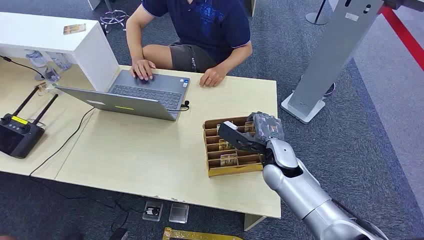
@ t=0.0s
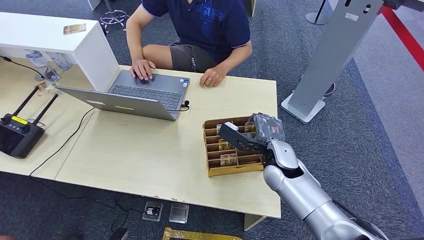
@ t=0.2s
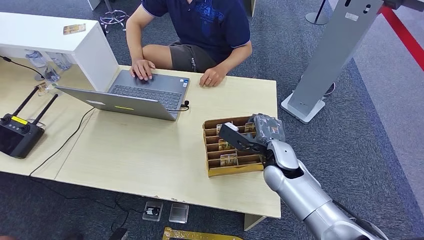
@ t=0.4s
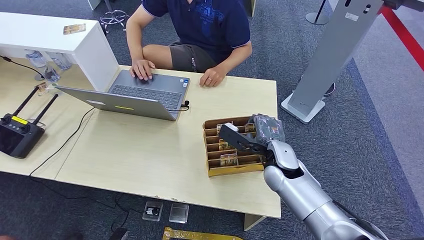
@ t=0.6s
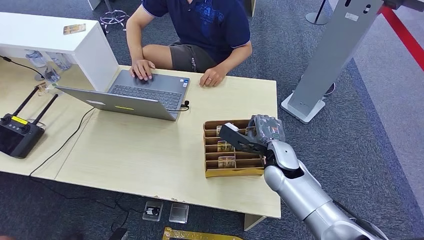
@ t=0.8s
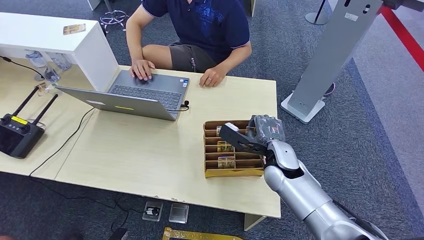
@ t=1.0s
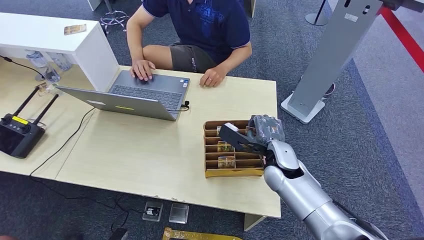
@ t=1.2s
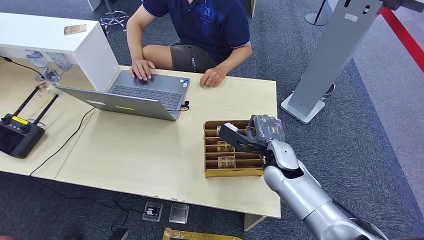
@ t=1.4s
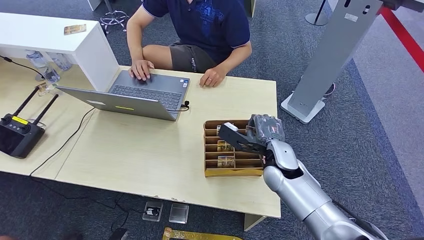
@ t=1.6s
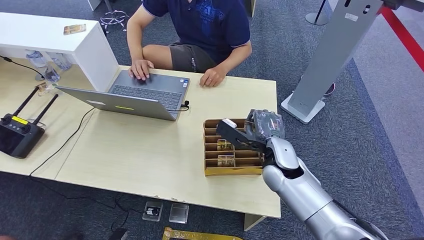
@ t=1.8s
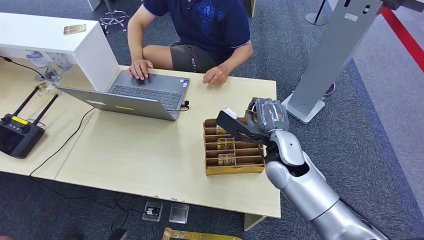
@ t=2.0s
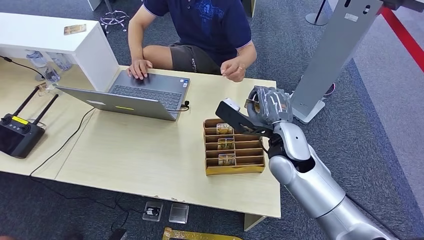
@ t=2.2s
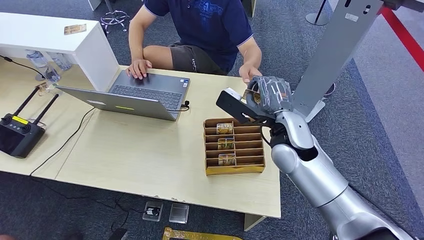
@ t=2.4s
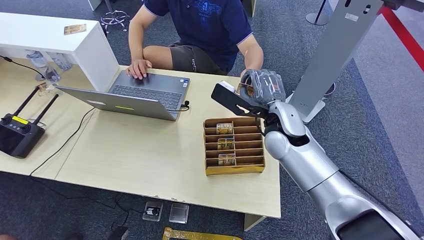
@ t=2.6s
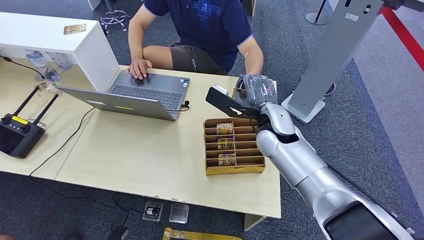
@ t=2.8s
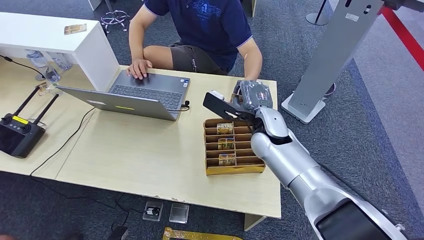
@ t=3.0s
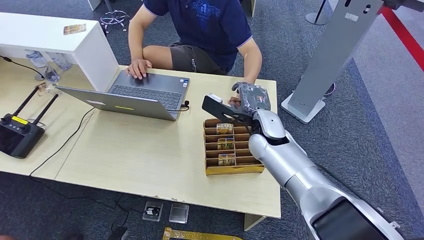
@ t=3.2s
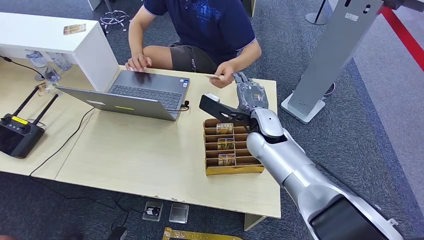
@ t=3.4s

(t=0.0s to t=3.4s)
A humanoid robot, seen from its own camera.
Step, t=0.0s - t=2.0s: Pick up the room card from the card holder.
Step, t=2.4s - t=3.4s: Hand the room card to the target.
t=1.6s - t=3.4s: The right hand shifts about 10 cm upward and to the left.

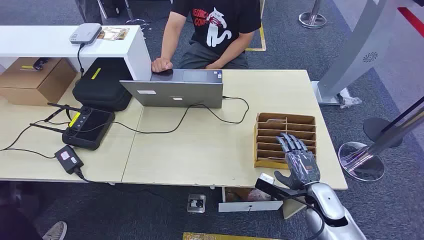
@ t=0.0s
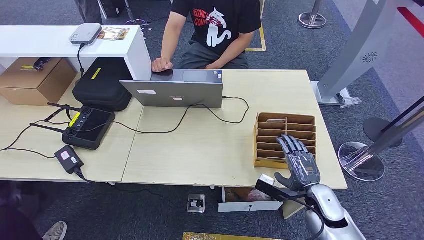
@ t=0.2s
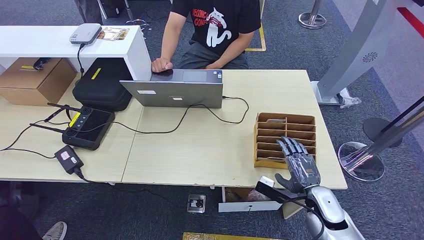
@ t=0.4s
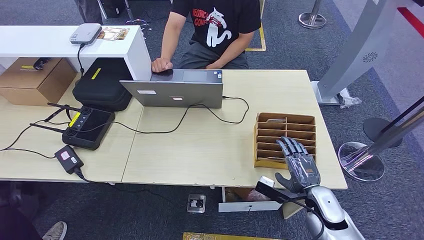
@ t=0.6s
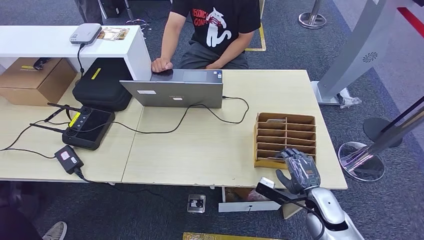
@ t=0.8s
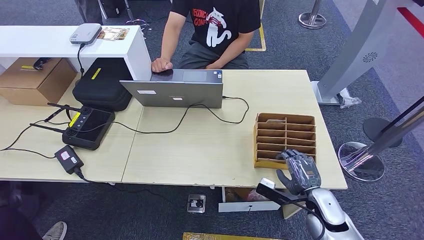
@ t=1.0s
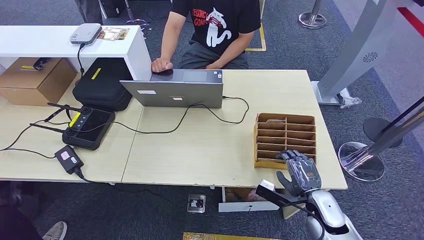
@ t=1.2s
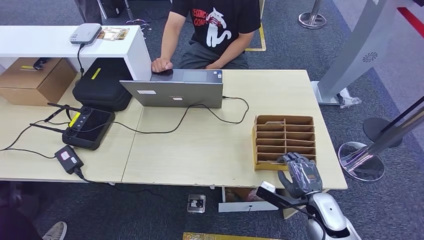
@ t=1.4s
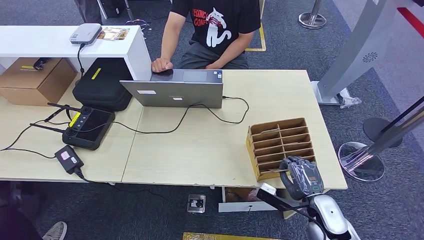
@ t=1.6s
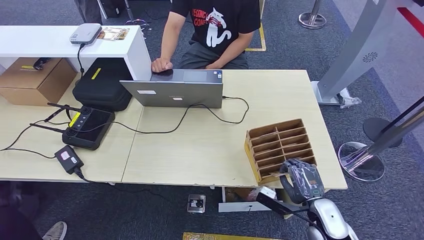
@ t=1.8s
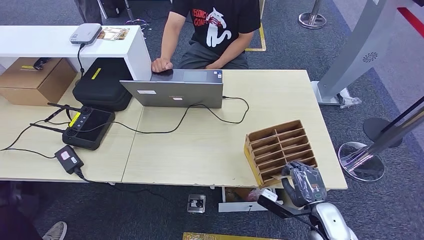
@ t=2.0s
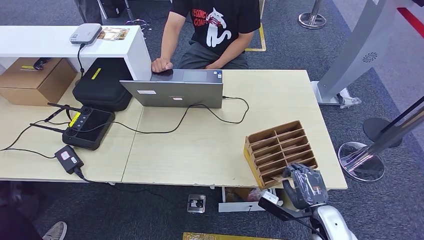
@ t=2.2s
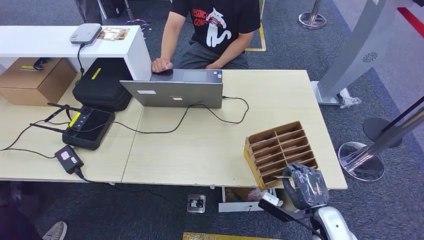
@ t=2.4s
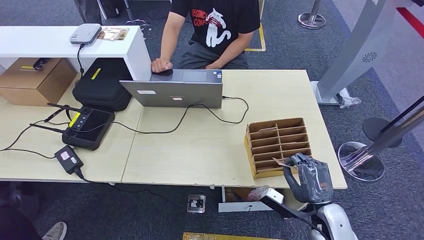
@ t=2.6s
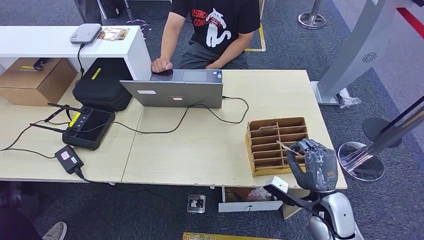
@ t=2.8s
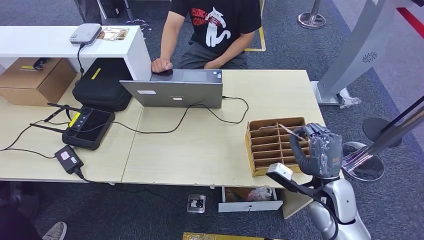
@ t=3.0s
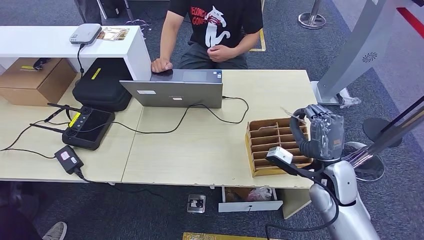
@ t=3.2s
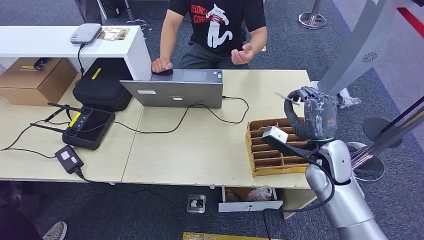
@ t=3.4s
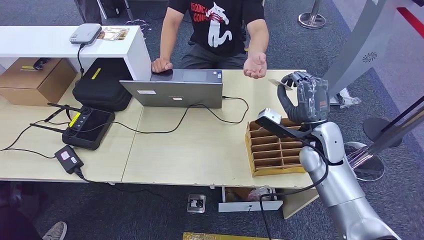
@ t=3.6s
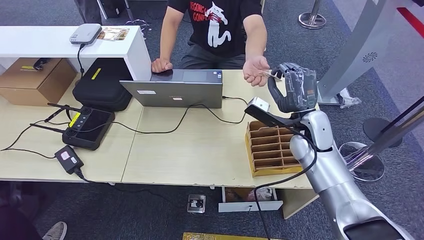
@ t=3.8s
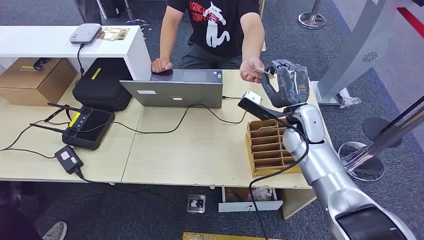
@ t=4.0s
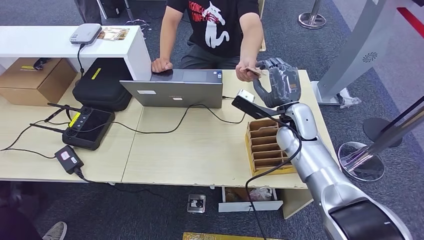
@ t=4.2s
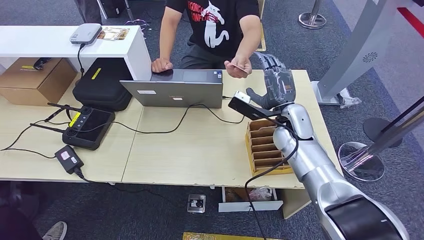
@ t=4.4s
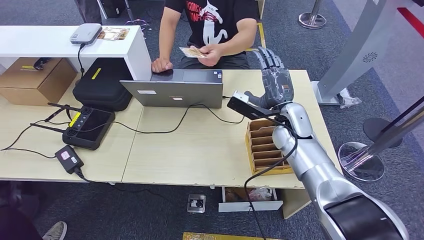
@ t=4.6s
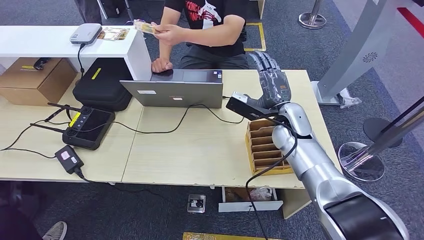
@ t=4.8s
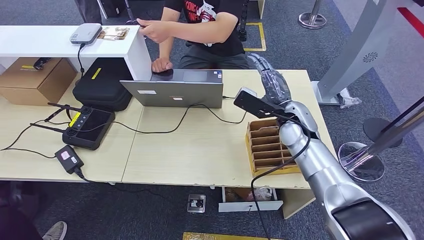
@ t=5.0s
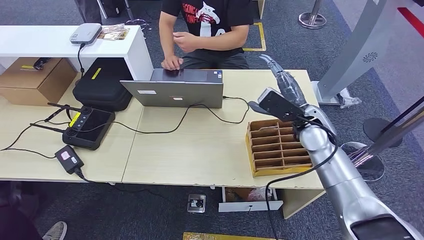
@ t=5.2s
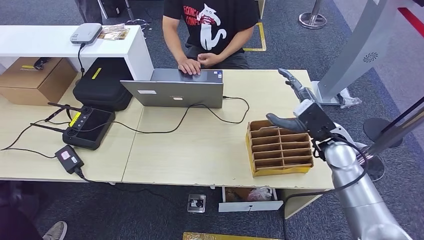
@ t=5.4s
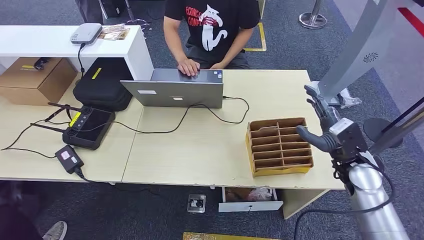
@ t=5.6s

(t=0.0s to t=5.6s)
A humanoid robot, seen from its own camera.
Step, t=0.0s - t=2.4s: Pick up the room card from the card holder.
Step, t=2.6s - t=5.4s: Hand the room card to the target.
t=2.8s - t=4.2s: The right hand shifts roughly 25 cm forward, upward and to the left.
t=4.2s - t=5.6s: The right hand is displaced to the right and backward by some 15 cm.
